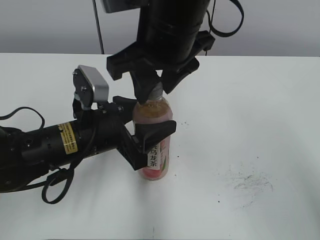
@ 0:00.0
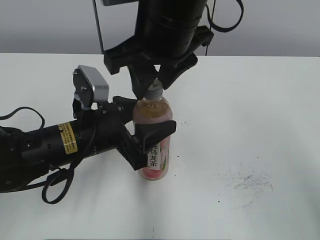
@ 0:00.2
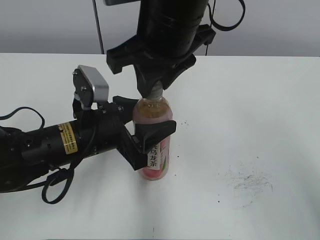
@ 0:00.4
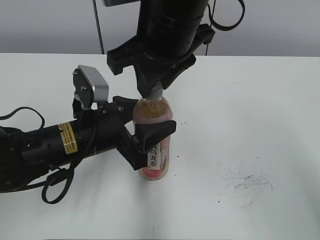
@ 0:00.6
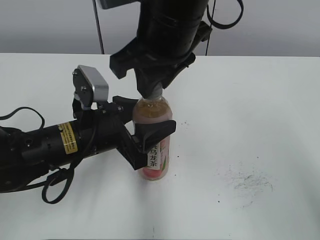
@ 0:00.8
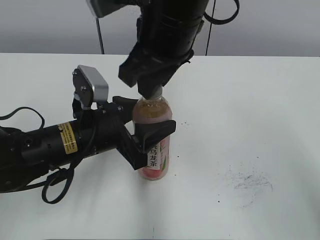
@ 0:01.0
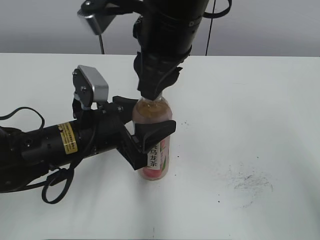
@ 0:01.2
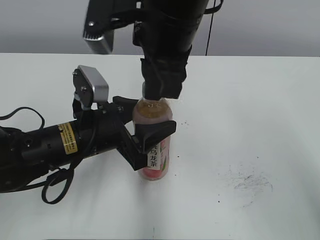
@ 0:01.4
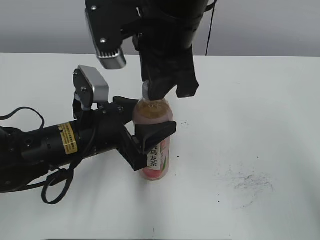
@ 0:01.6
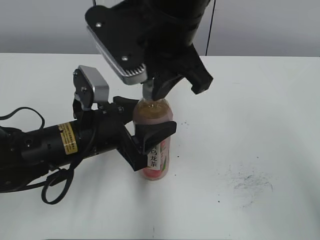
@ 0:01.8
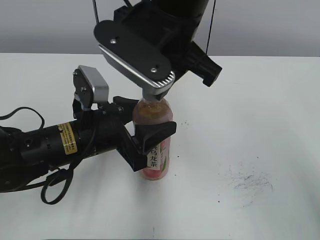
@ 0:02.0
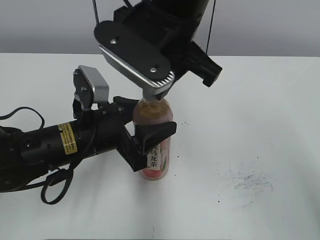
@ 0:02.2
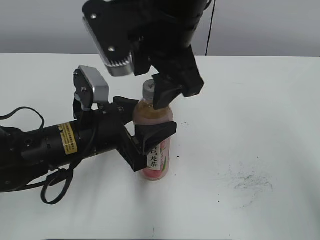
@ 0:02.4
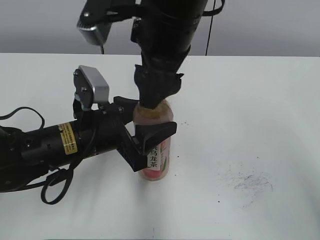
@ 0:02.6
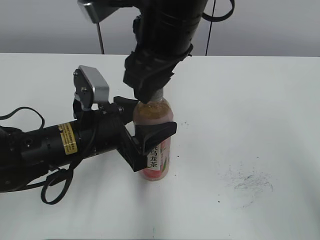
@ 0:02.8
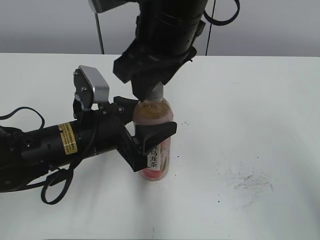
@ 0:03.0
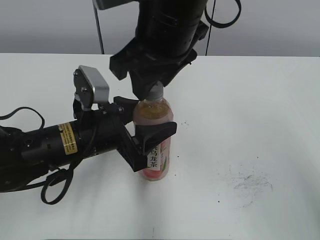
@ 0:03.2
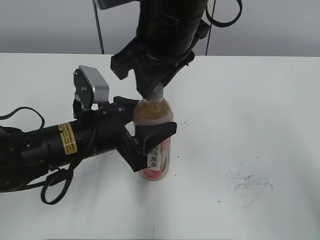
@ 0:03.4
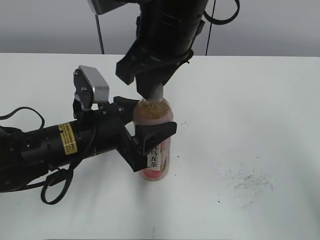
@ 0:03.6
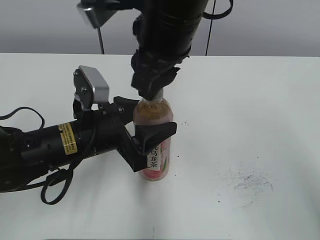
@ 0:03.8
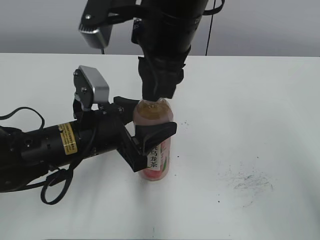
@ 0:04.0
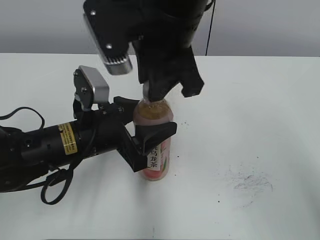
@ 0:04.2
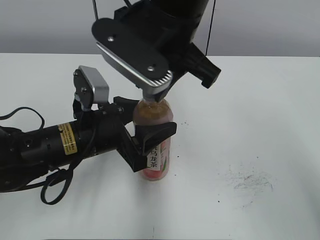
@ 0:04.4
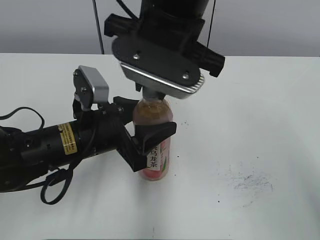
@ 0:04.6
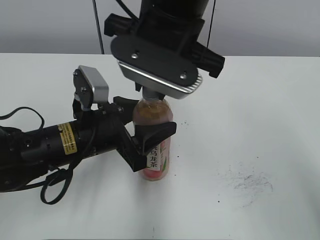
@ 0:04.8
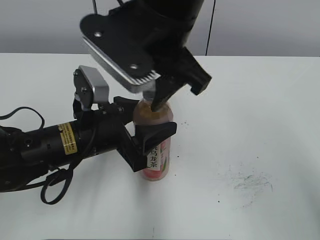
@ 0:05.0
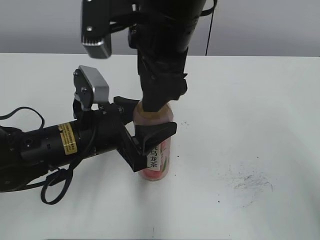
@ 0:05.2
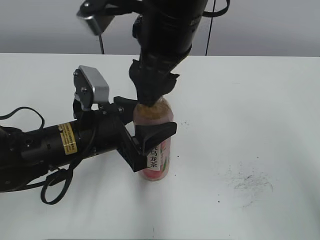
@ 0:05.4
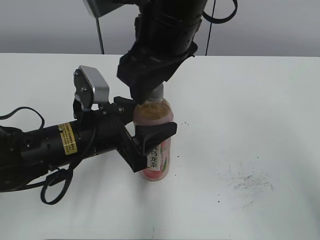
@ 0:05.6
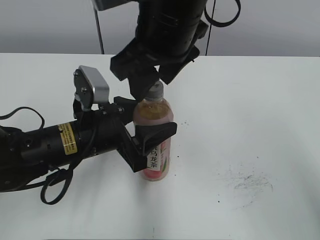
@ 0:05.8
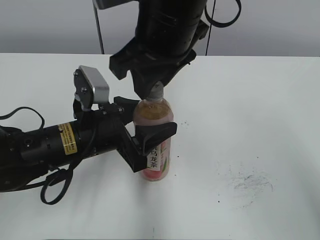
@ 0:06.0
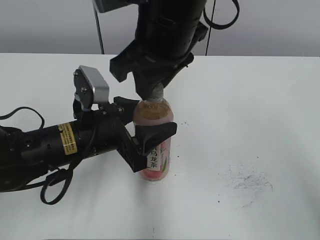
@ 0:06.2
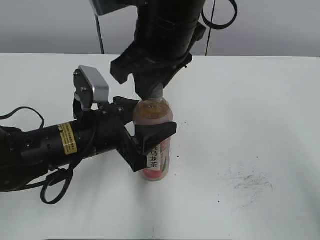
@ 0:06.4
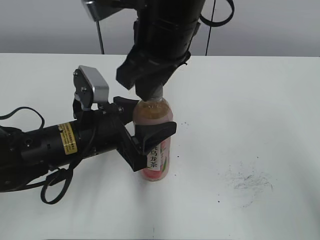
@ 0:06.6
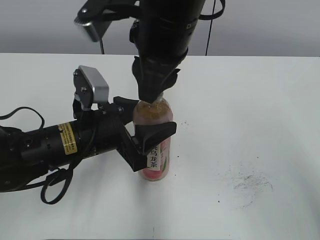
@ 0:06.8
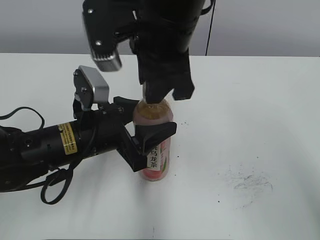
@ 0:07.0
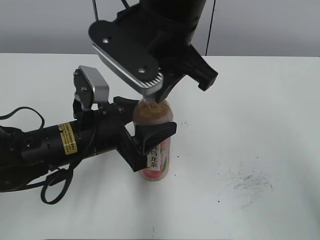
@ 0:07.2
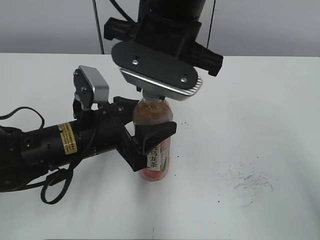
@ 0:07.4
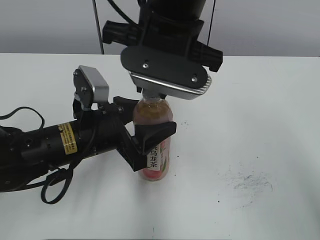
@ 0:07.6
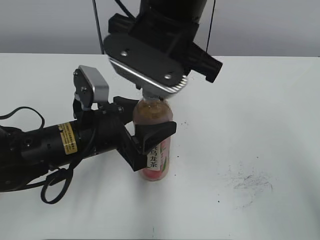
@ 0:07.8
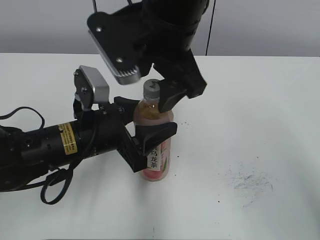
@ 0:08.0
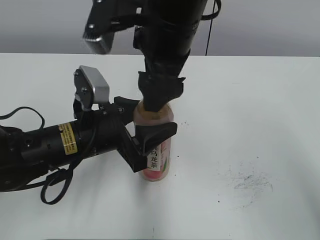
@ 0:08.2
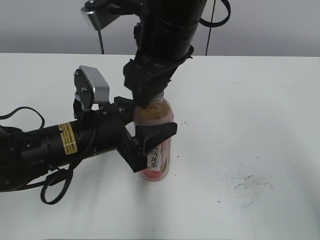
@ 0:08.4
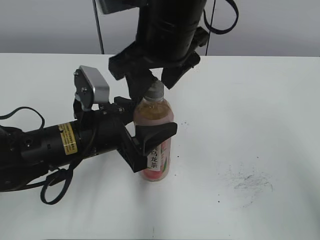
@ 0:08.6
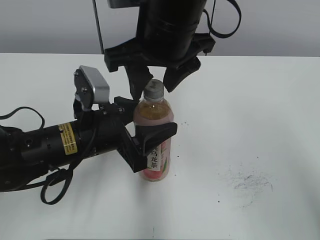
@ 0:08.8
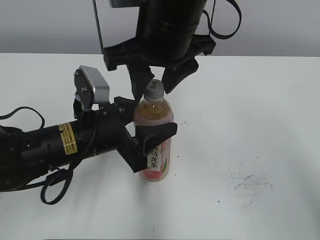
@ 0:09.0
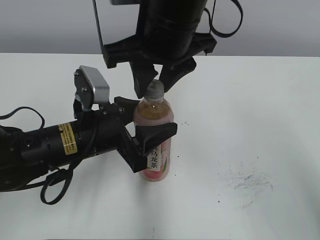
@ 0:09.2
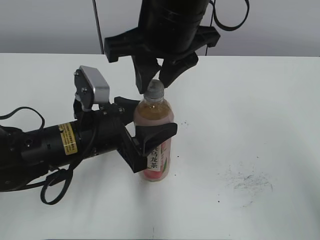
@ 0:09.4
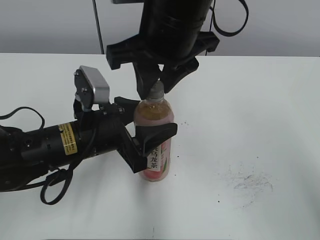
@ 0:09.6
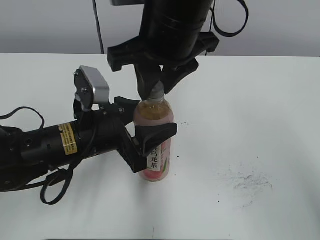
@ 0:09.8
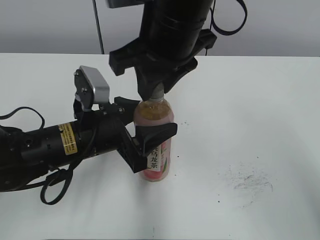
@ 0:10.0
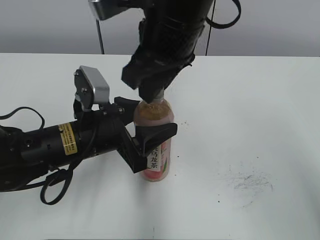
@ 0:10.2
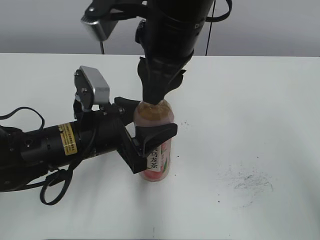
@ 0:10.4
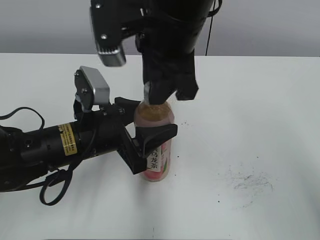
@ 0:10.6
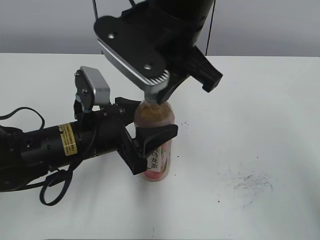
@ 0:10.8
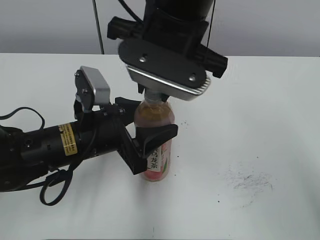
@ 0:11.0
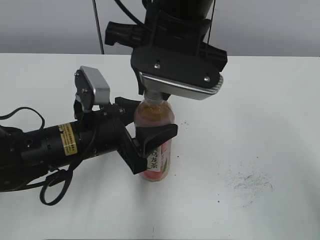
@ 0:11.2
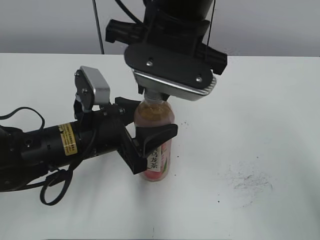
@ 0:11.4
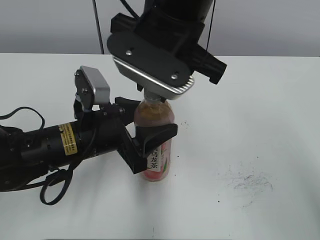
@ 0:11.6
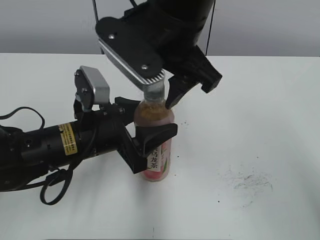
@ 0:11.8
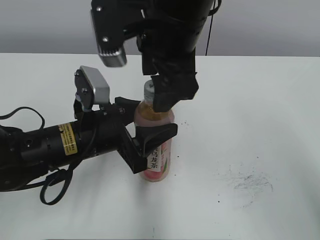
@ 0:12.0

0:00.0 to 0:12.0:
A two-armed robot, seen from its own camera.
0:00.0 to 0:01.6: The right gripper closes up.
0:01.6 to 0:03.0: The right gripper opens up.
0:03.0 to 0:04.4: The right gripper closes its fingers.
0:04.4 to 0:06.0: The right gripper opens, then closes again.
0:07.6 to 0:09.0: The right gripper opens up.
0:09.0 to 0:10.4: The right gripper closes up.
0:10.4 to 0:12.0: The right gripper opens.

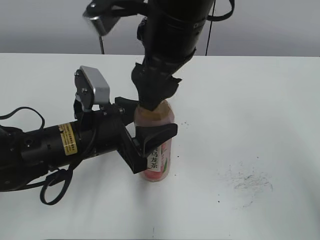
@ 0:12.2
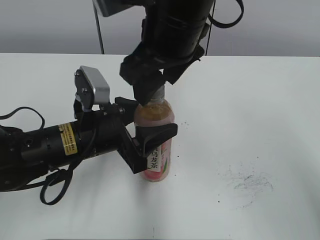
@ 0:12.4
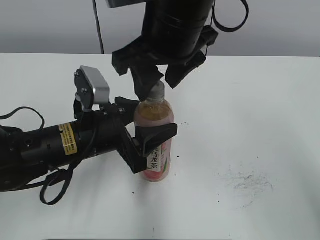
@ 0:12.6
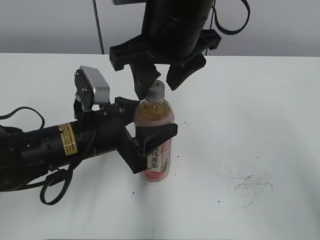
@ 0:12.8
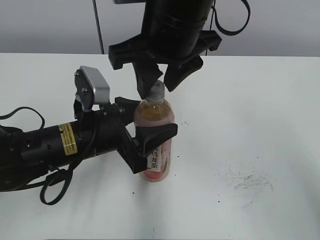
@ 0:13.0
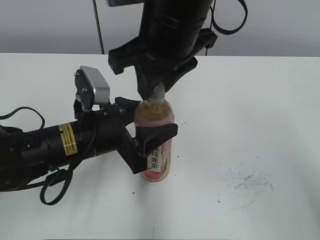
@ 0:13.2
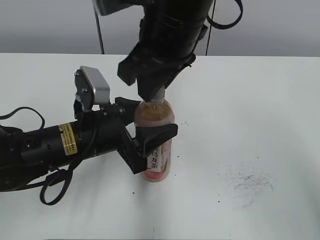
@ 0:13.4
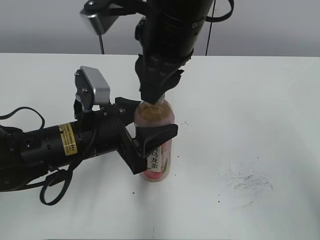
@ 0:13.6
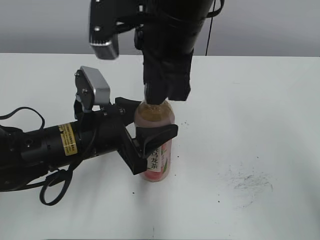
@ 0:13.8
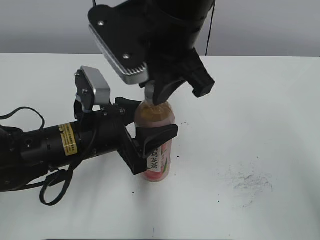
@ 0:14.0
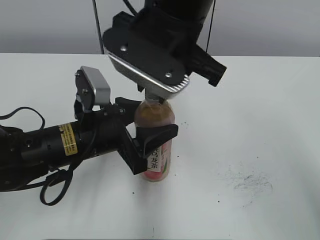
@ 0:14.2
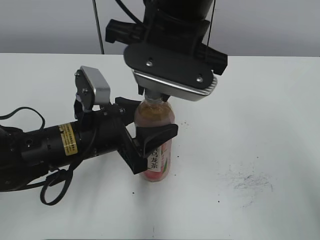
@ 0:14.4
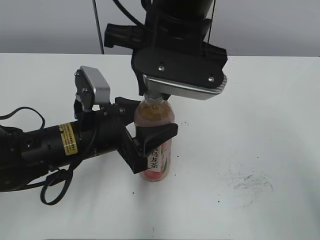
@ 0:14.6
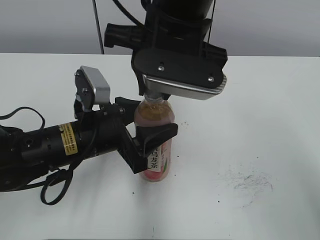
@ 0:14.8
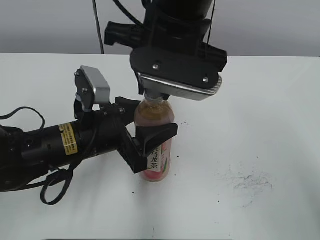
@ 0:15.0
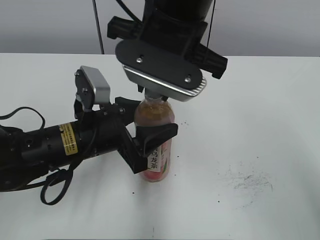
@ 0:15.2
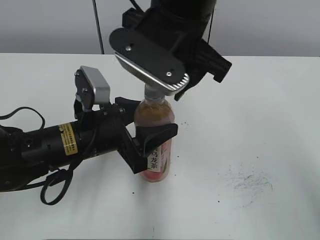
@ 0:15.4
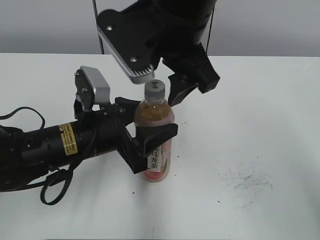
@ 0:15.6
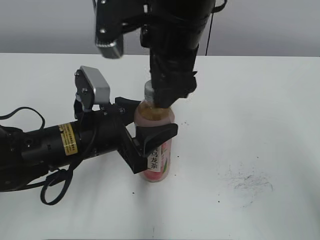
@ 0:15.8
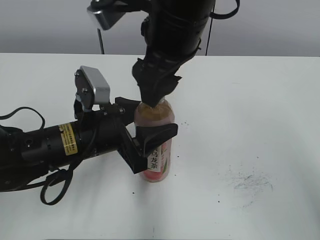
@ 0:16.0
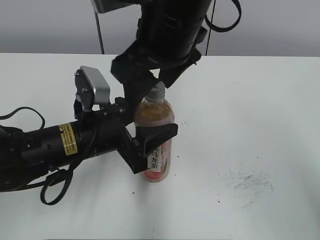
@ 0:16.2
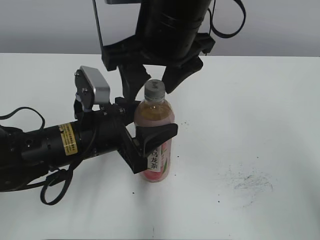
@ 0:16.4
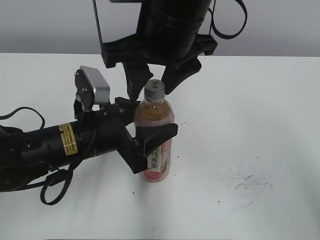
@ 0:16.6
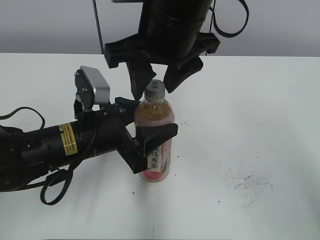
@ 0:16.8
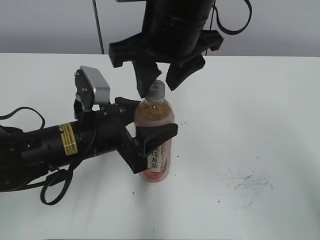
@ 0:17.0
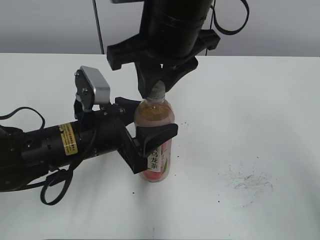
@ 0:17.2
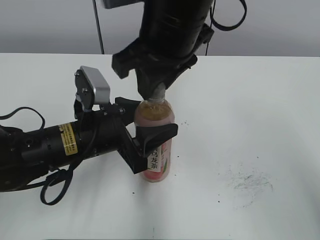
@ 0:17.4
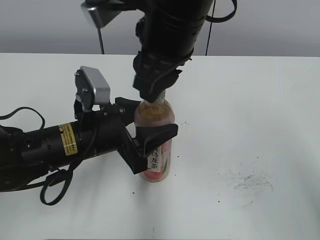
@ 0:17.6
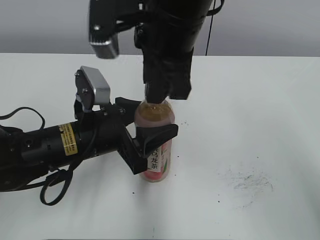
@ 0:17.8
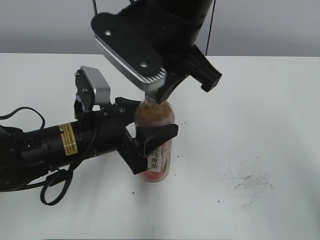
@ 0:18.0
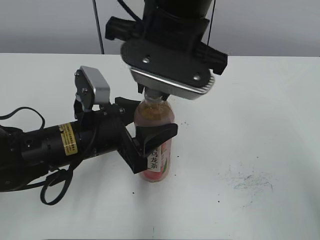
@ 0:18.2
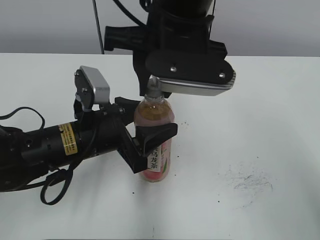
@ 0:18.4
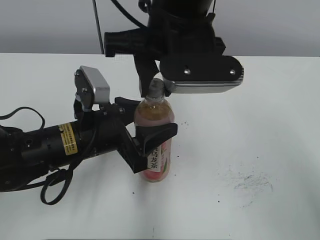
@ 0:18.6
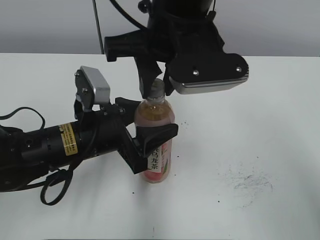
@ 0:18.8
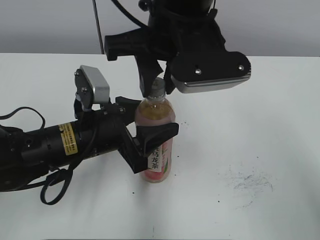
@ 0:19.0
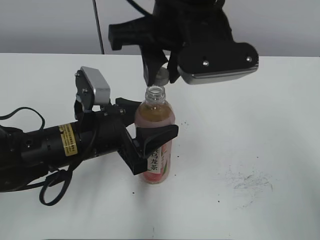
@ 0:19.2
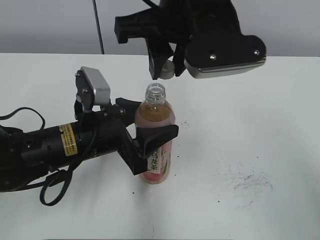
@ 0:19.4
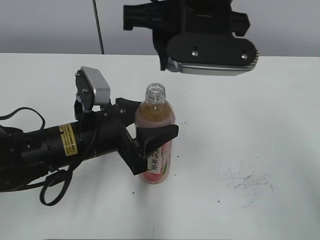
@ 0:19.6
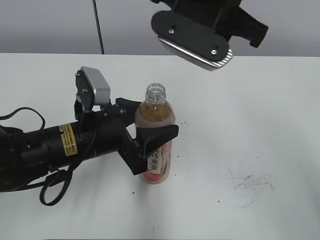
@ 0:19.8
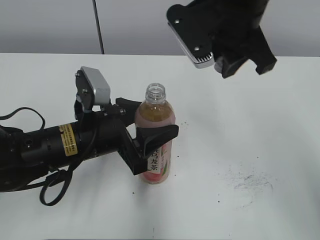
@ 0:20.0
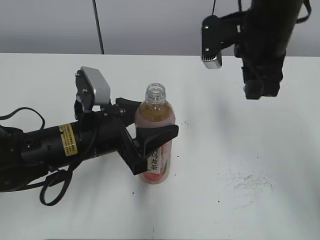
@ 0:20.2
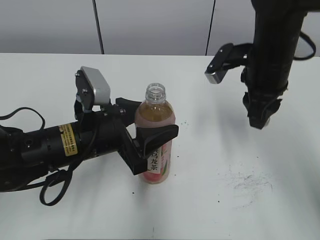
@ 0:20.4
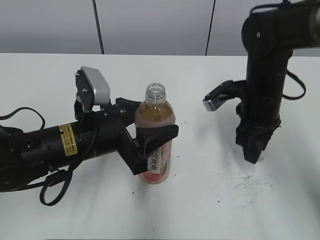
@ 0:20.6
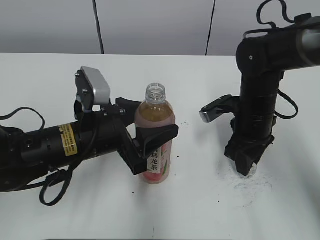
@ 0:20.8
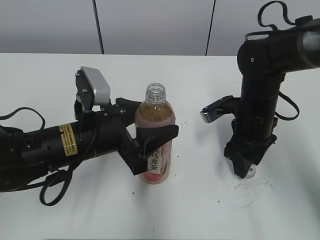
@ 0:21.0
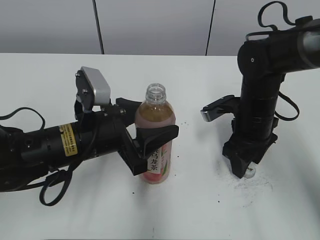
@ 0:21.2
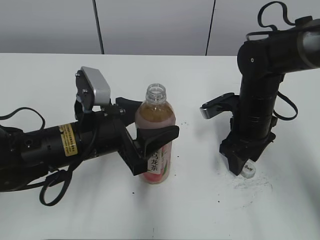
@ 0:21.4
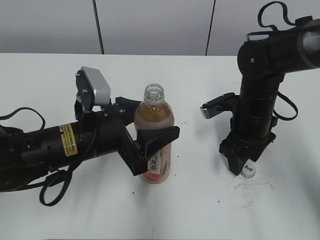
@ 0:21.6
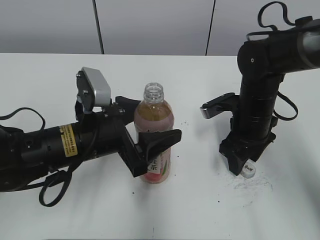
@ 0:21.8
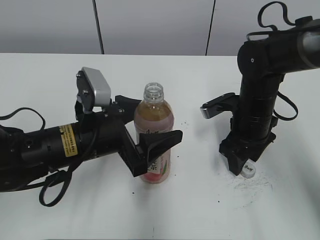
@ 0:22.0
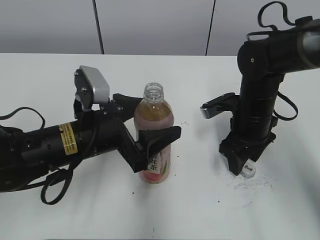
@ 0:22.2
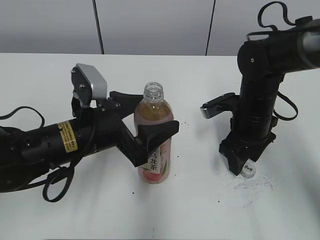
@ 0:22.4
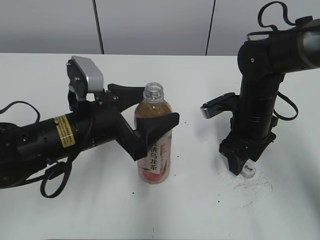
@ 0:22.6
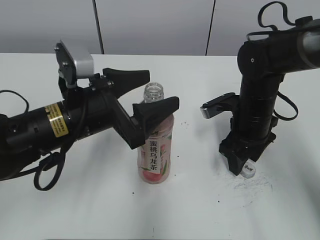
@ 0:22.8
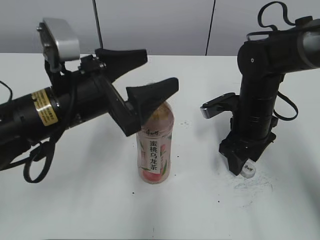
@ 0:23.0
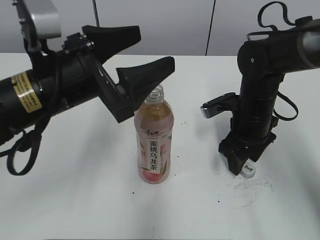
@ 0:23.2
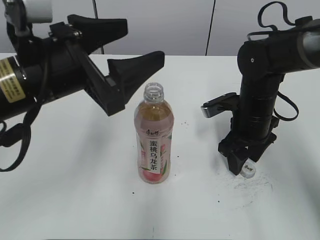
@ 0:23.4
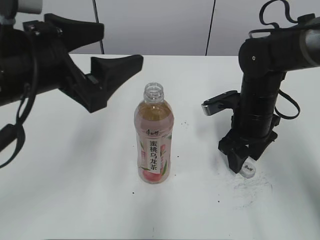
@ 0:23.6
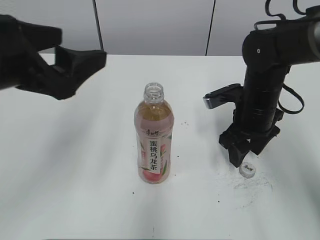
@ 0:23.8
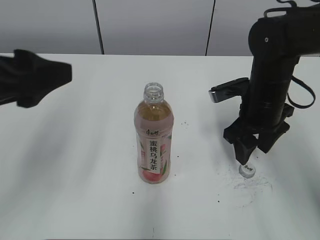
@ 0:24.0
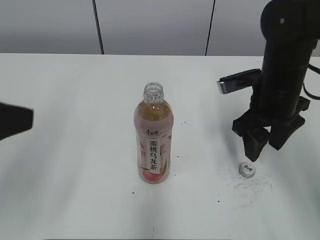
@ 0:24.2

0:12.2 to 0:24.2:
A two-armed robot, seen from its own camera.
Step, 0:19.2 to 0:21.0: Place the bottle cap on the right.
Step, 0:21.2 to 0:22.0: Place the Peach Oolong Tea with the left hand.
0:12.2 to 0:13.8: The right gripper closes.
0:15.2 to 0:16.6: The right gripper opens.
0:16.6 to 0:18.2: The right gripper closes up.
0:19.8 to 0:21.2: The right gripper goes roughly 25 cm downward and to the right, and opens its fingers.
0:21.2 to 0:22.6: The left gripper opens its fingers.
0:22.6 to 0:24.2: The right gripper heads upward, covering some 5 cm; the left gripper is displaced upward, to the left and backward by some 20 cm.
